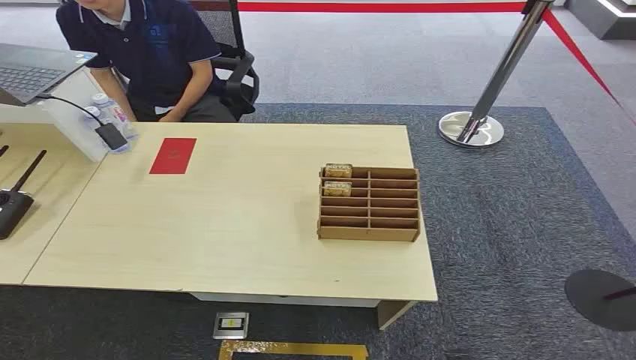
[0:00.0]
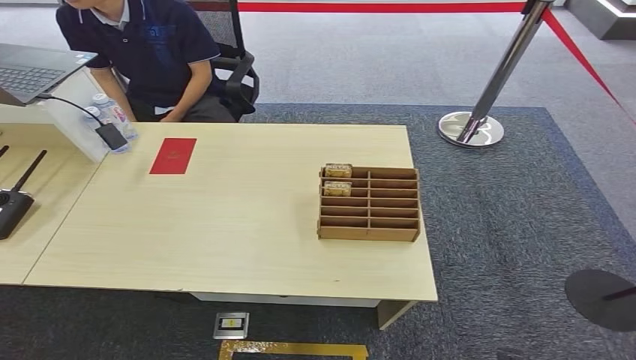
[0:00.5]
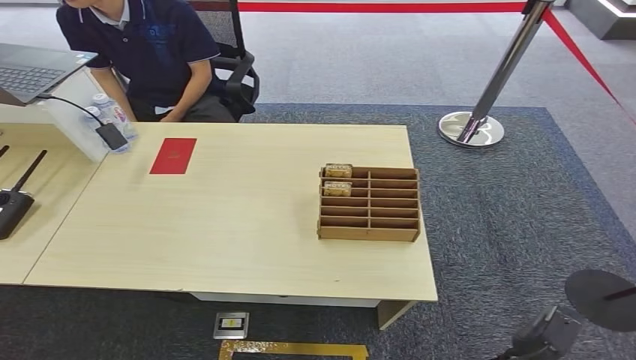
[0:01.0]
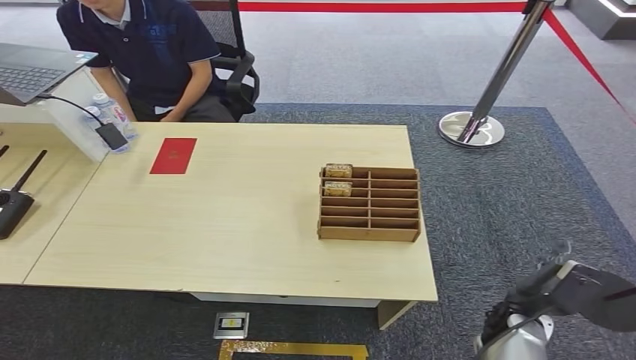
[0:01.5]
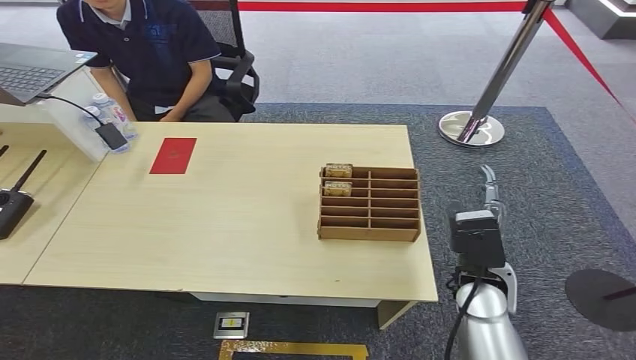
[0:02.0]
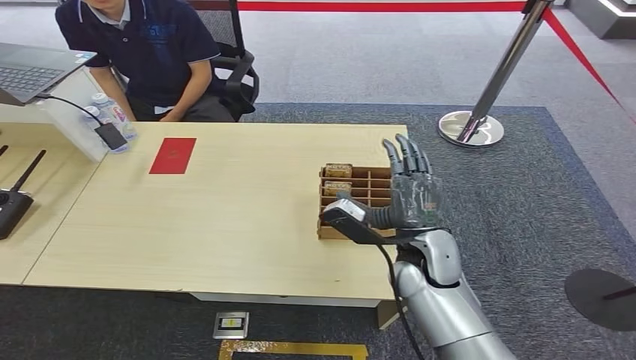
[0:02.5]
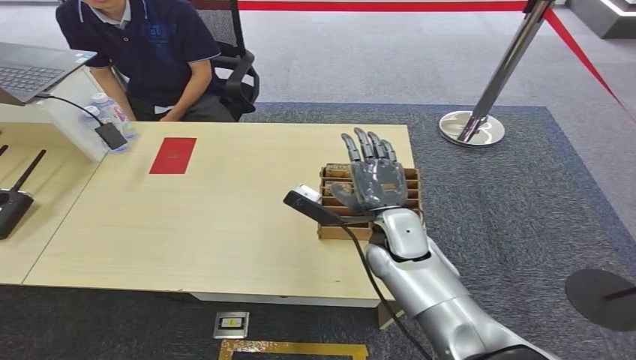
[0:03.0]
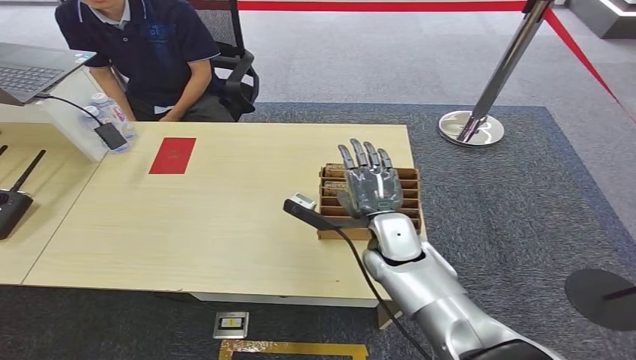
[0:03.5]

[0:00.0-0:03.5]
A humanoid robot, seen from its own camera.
Step, 0:00.0 to 0:03.5: Pick up the room card from the card holder.
0:02.0 to 0:03.5: The right hand shifts roughly 15 cm to the left and forward.

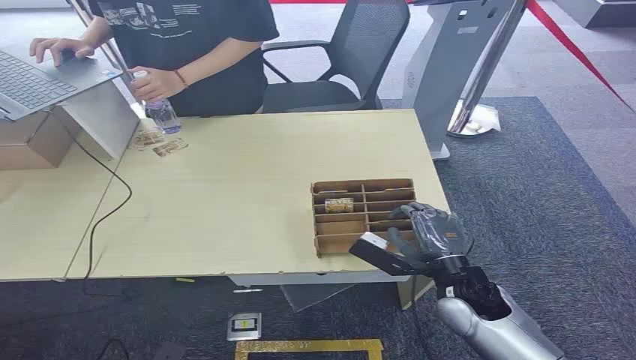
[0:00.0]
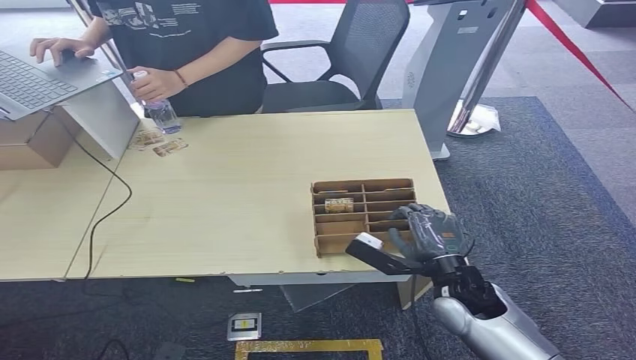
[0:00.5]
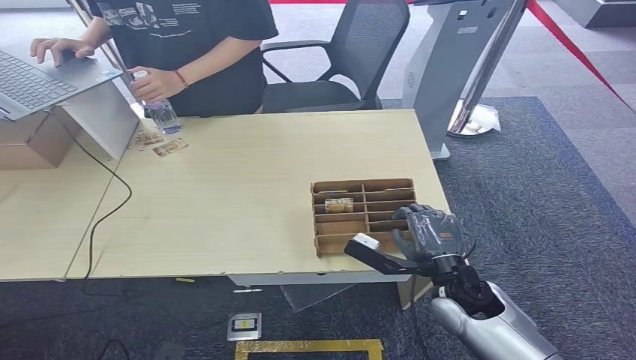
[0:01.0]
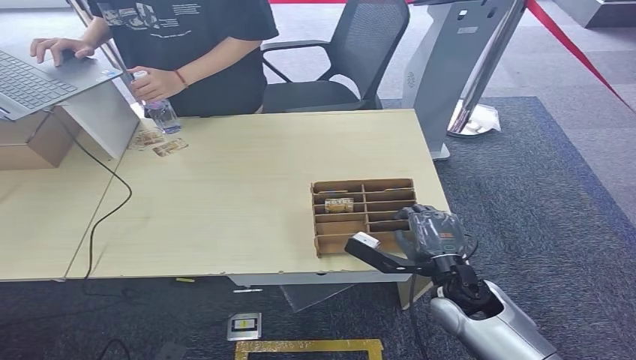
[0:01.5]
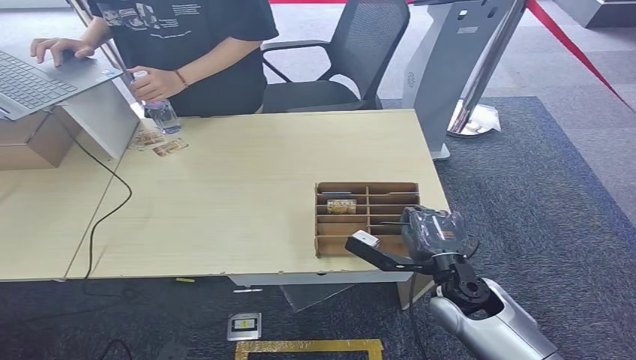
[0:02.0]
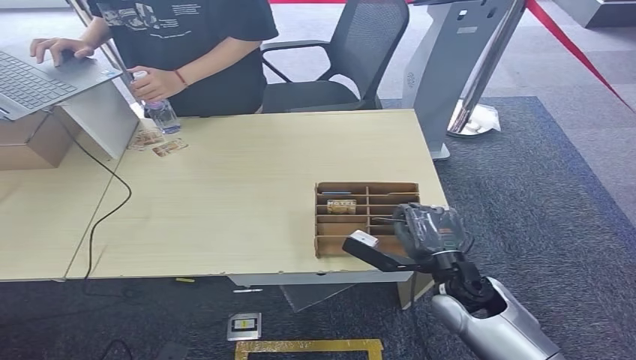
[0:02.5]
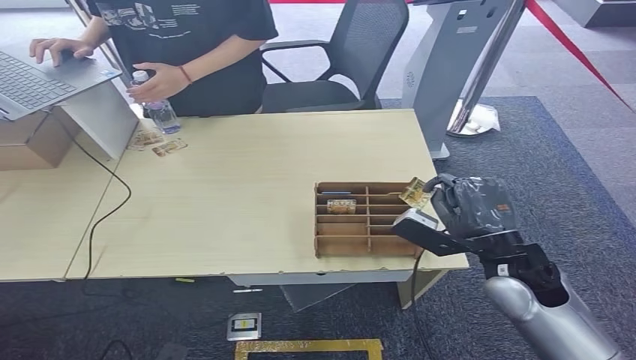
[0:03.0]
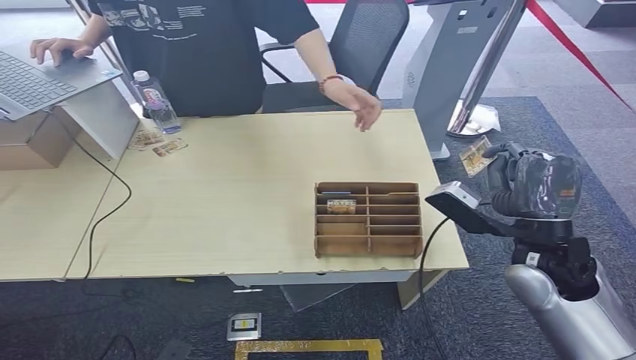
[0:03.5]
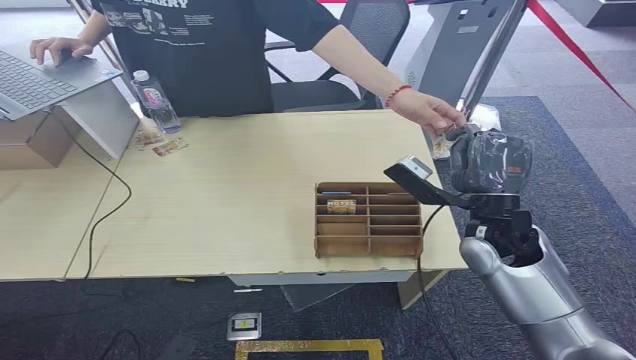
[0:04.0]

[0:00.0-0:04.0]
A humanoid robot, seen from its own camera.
Step, 0:00.0 to 0:03.0: Pick up the room card from the card holder.
Step, 0:03.5 to 0:04.0: Hand the room card to the target.
0:02.0 to 0:04.0: The right hand is displaced upward and forward by about 15 cm.
